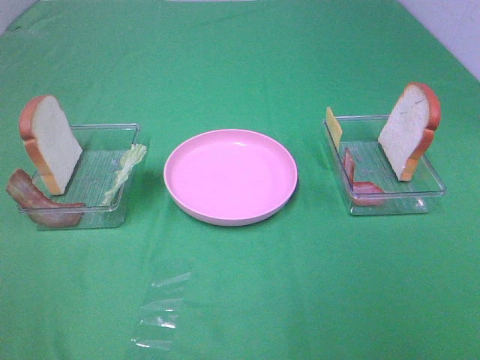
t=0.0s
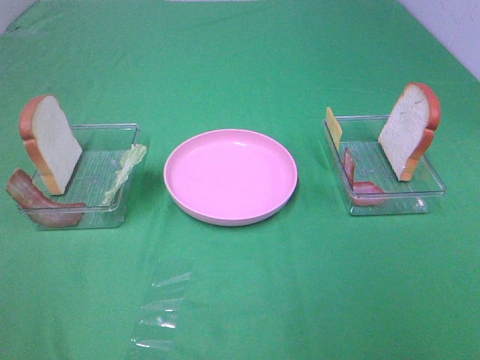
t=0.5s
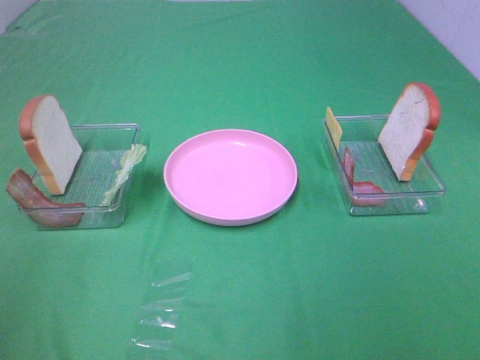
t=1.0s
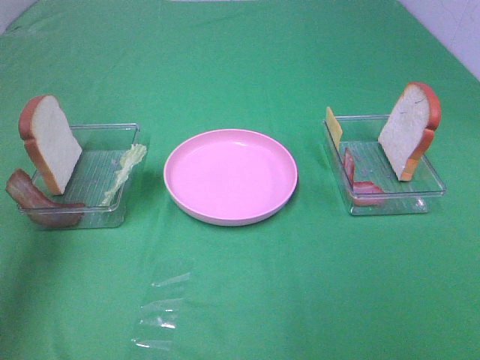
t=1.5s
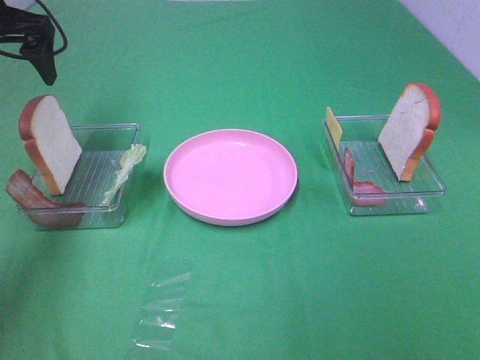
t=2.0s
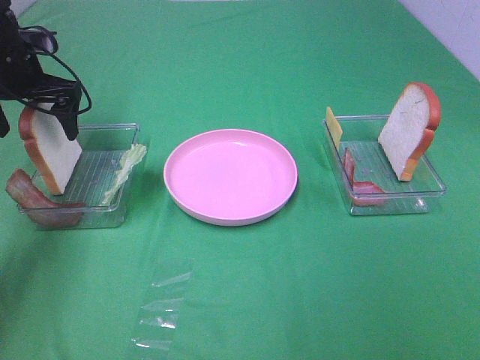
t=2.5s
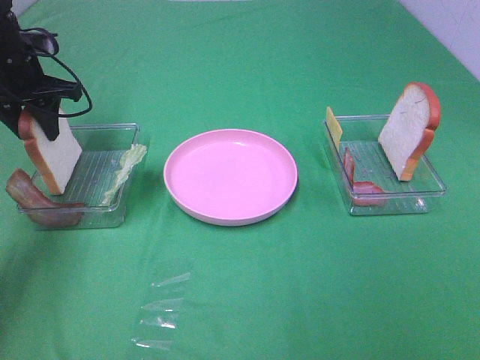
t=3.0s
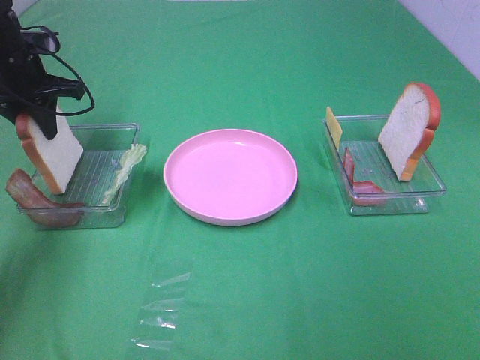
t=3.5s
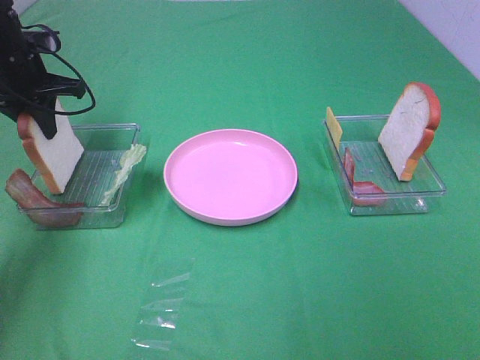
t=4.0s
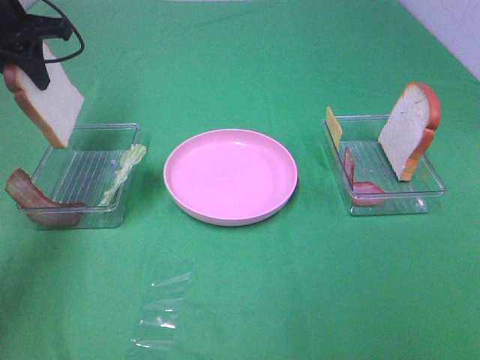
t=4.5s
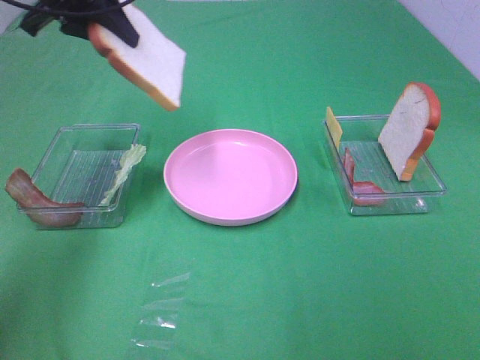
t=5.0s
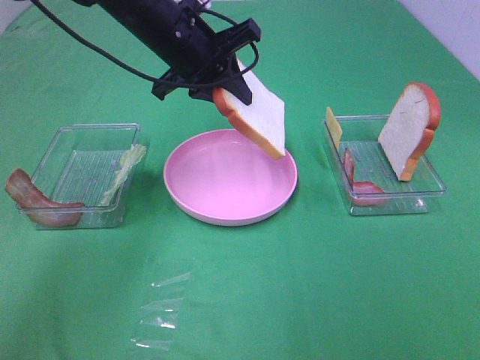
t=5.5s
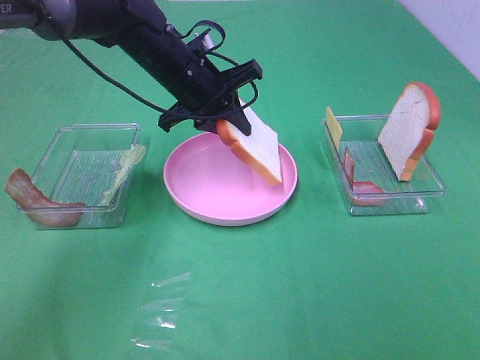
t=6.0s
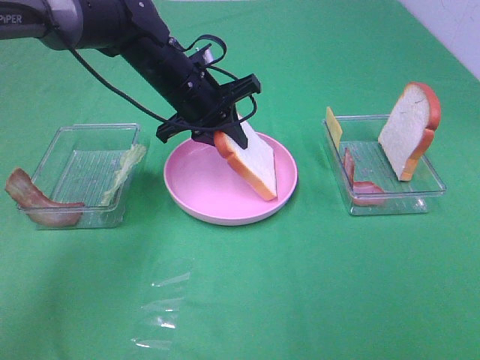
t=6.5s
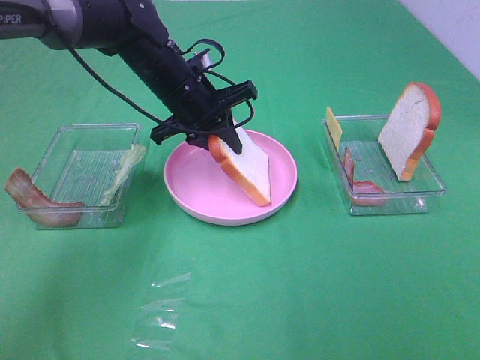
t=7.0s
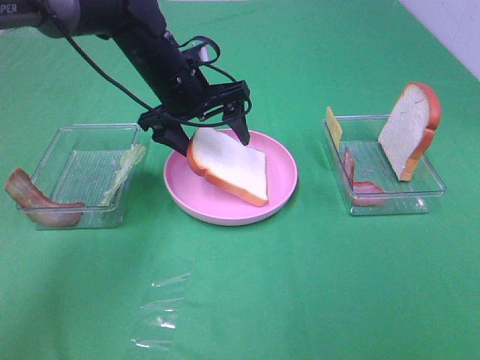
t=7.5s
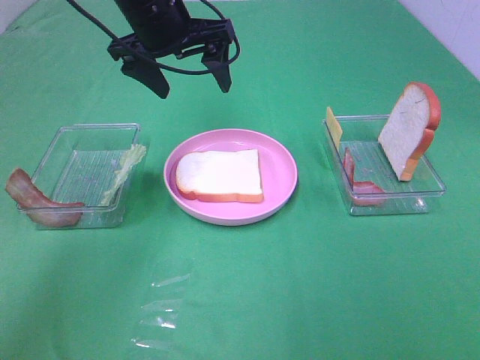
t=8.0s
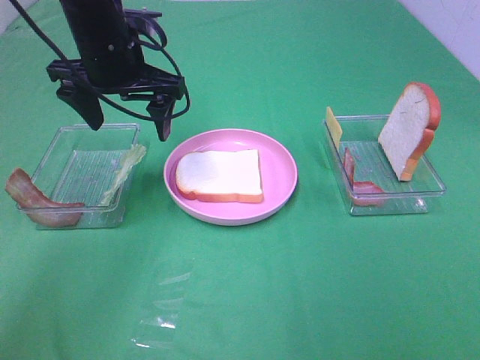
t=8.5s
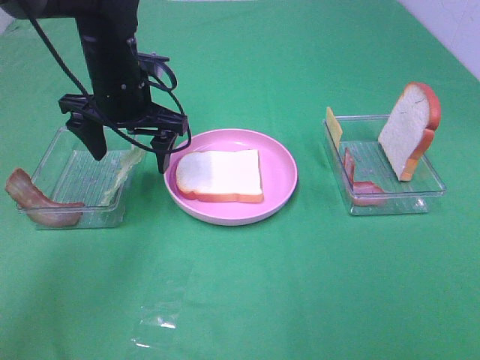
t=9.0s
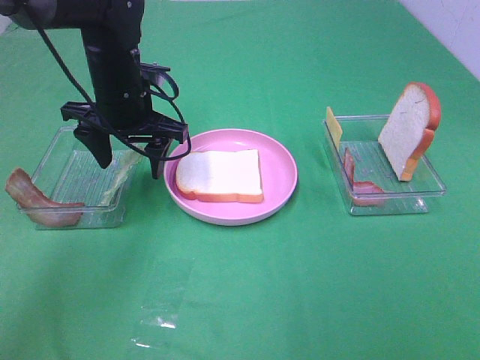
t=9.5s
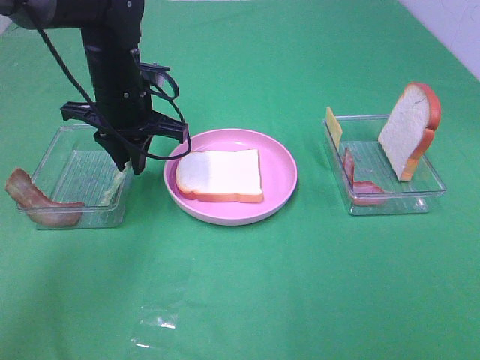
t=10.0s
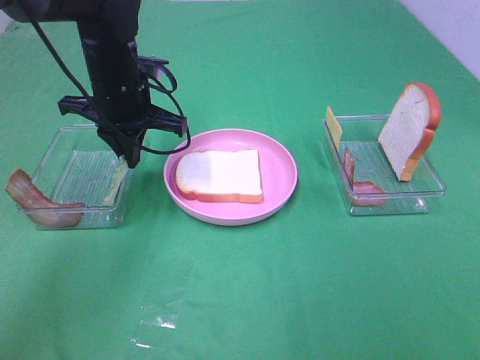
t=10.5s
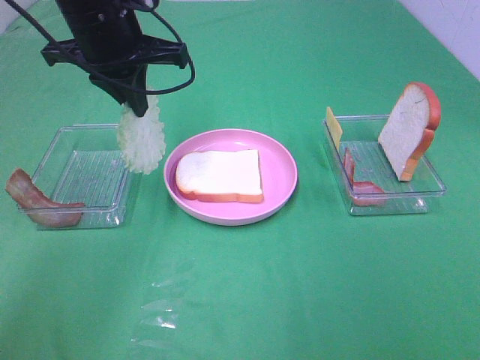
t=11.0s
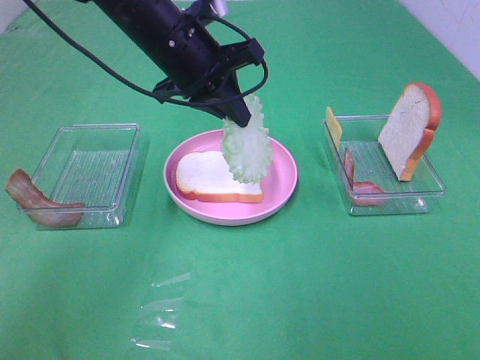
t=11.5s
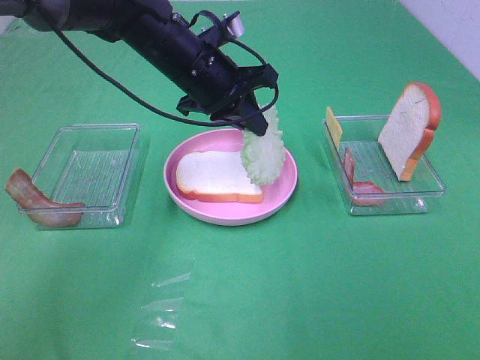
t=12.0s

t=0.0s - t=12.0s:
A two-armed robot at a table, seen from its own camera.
Task of the whole recording: Make sandwiches.
Step, t=0.0s - t=3.5s: Left hand:grab the bread slice.
Step, t=4.0s - t=7.5s: Left hand:place the bread slice on the plate.
Step, t=8.0s - t=10.0s: Left hand:grab the lettuce slice.
t=0.0s - t=2.0s: The left gripper shifts approximately 40 cm forward.
t=2.0s - t=4.0s: The left gripper shifts some 10 cm downward, and closes its fingers.
t=4.0s - t=6.0s: The left gripper goes approximately 20 cm to the right.
t=6.0s - t=8.0s: The left gripper shifts some 10 cm upward, and opens up.
t=8.0s - t=10.0s: The left gripper moves downward, some 10 cm, and closes its fingers.
t=10.0s - t=12.0s: The left gripper goes some 10 cm to the right, and moves roughly 10 cm upward and comes back.

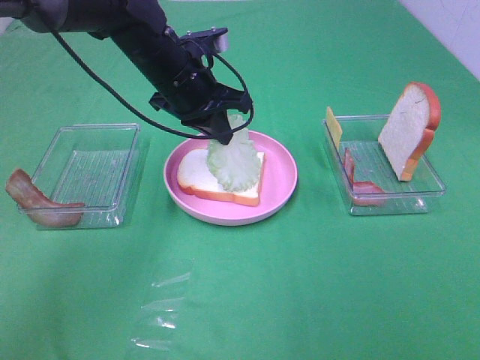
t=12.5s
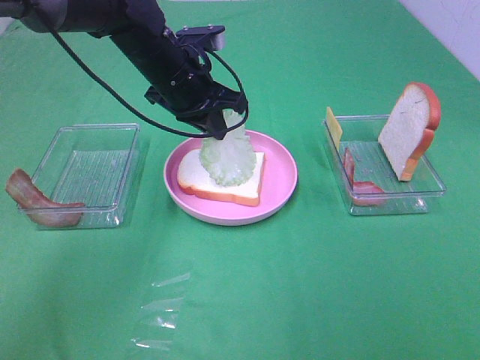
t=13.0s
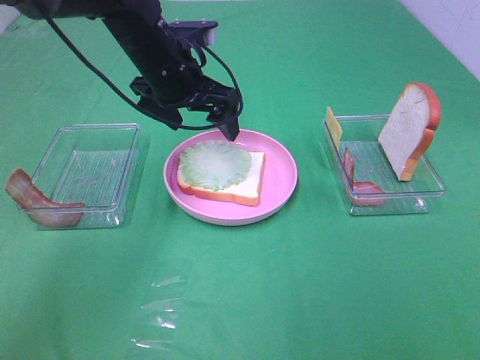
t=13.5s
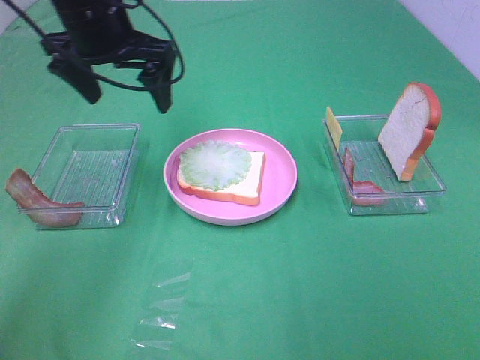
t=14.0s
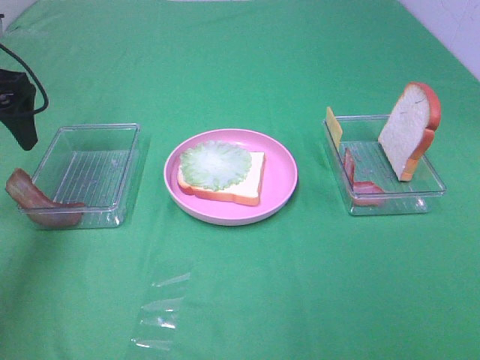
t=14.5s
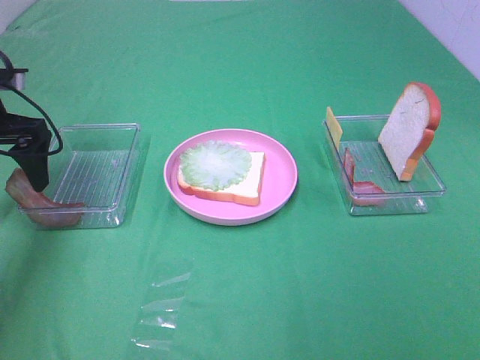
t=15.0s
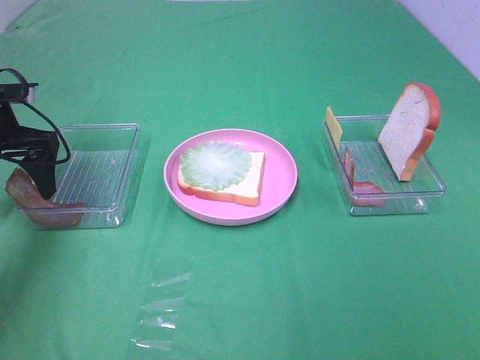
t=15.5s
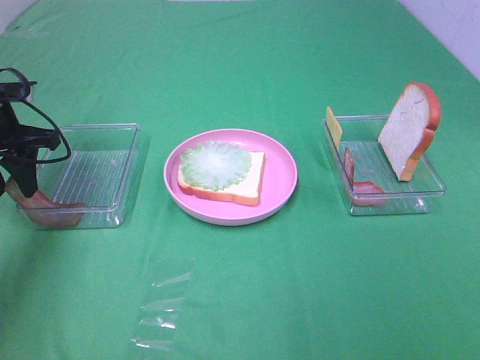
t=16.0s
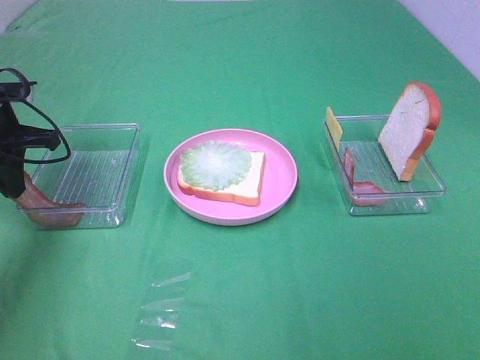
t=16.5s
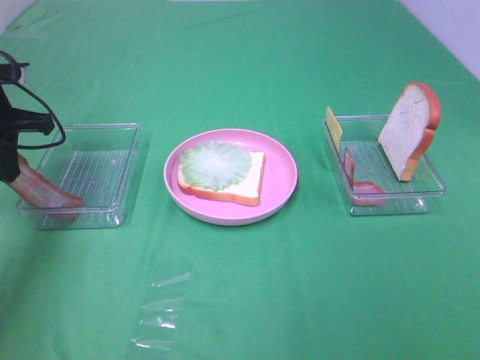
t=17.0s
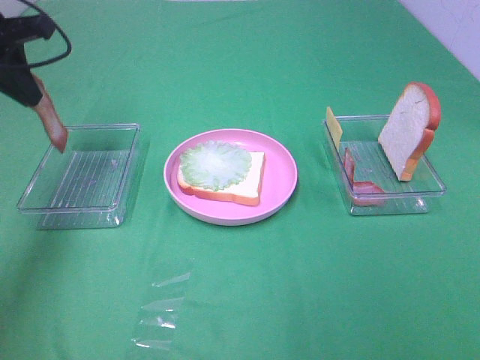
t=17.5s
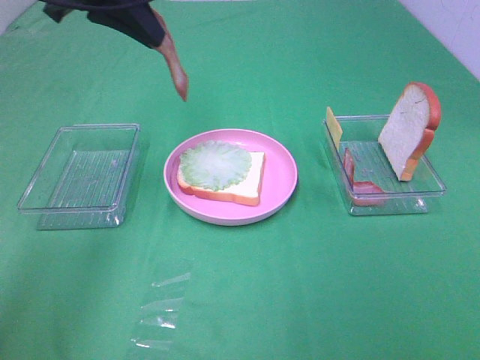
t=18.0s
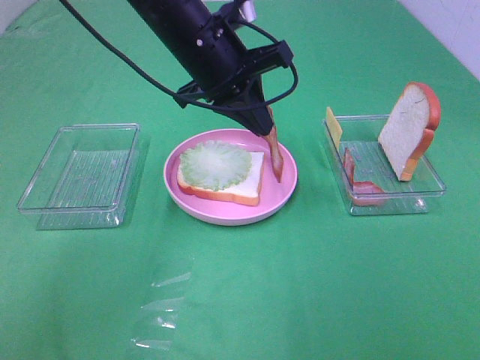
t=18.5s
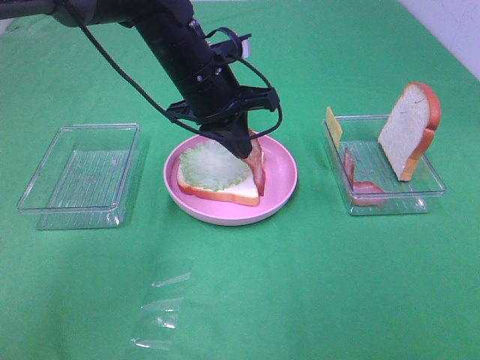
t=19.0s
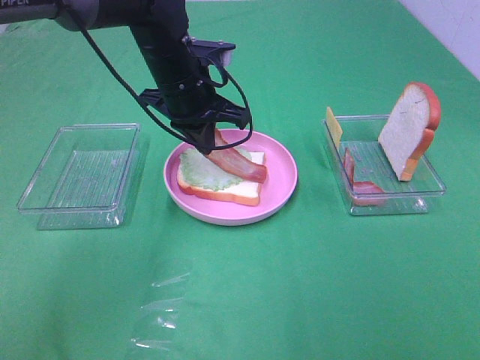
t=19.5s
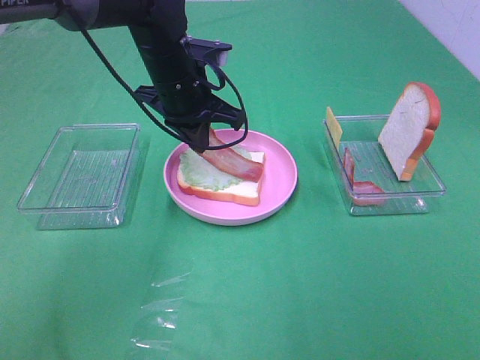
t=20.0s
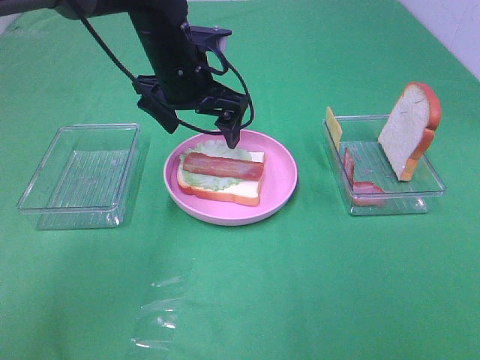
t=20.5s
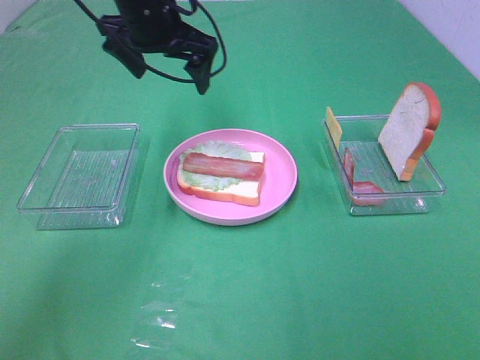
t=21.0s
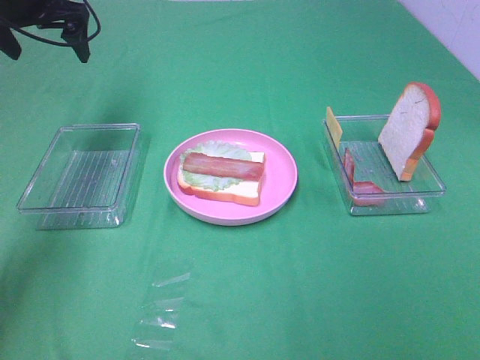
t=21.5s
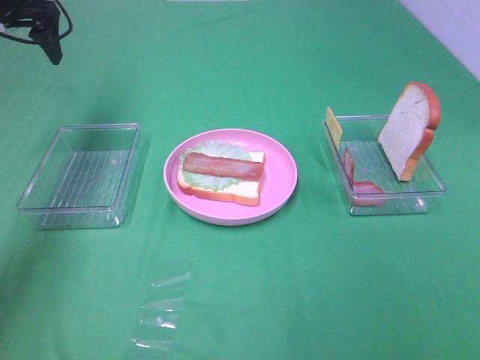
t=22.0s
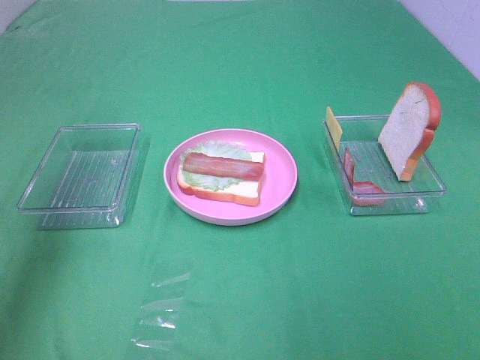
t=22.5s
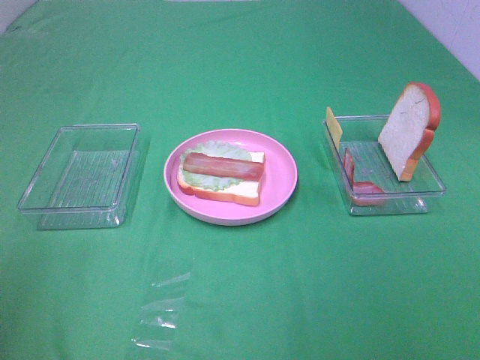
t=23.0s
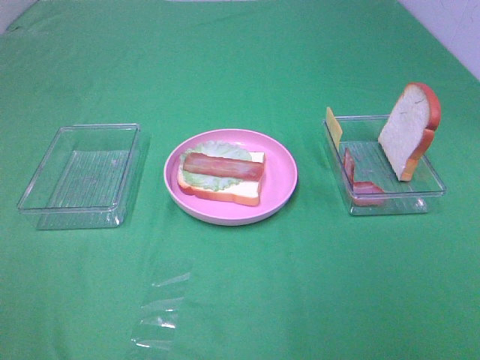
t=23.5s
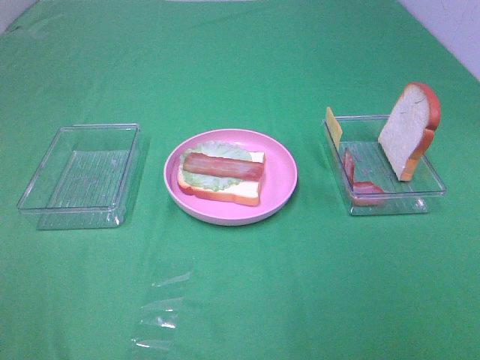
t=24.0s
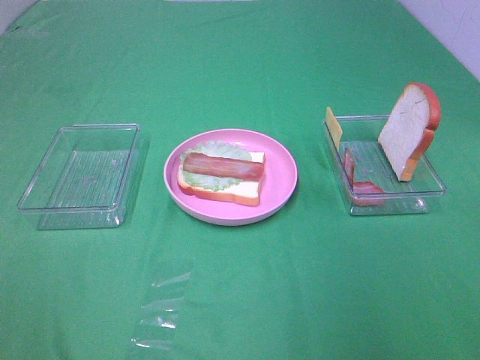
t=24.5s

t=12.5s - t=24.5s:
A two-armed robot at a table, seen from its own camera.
Task of the whole recording: Make sandwiches.
Step, t=13.5s - t=16.5s: Left hand:grab the bacon.
Step, t=17.0s - t=20.0s: Left hand:place bacon on lettuce slice.
t=12.5s - t=14.5s: The left gripper goes about 25 cm to the left, and opens its fingers.
t=14.5s - t=16.5s: The left gripper shifts roughly 10 cm downward, and closes up.
t=16.5s - t=18.5s: The left gripper goes roughly 25 cm to the right.
t=18.5s - t=20.5s: The left gripper ends up roughly 5 cm from where it was, and opens its fingers.
t=20.5s - t=22.5s: The left gripper goes some 30 cm to the left, backward and upward.
t=22.5s - t=24.5s: The left gripper shifts about 30 cm backward.

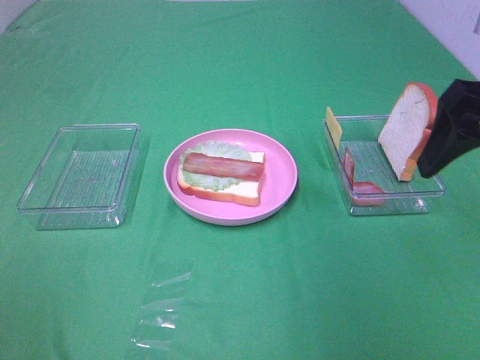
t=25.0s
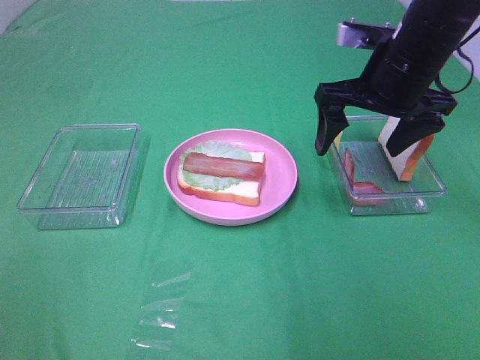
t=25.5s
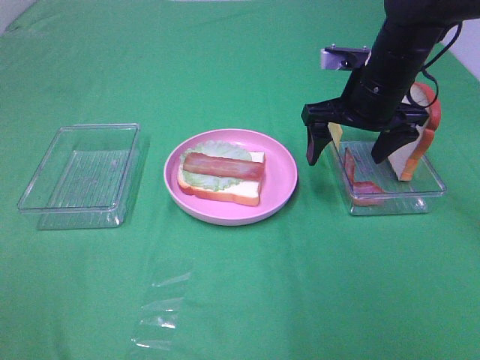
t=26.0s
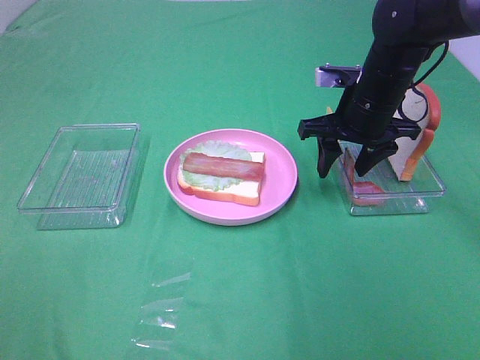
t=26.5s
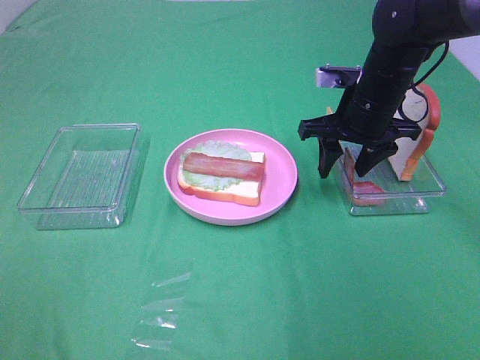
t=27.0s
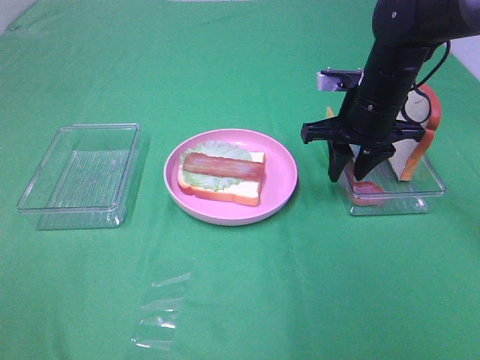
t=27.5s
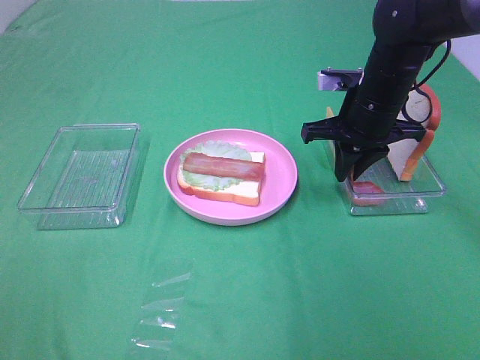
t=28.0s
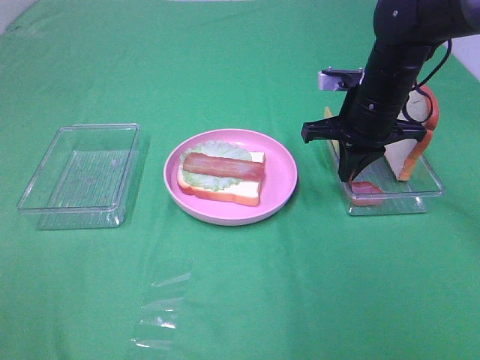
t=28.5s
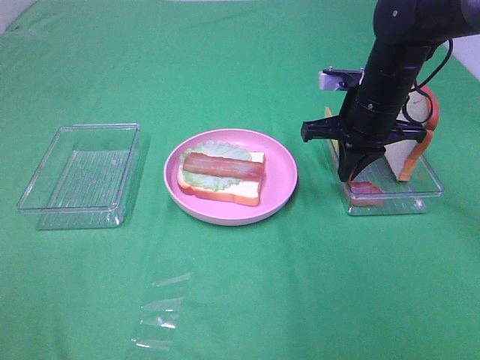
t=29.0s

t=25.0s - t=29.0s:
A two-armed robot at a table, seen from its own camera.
Task of the whole recording: Make sandwiches.
t=25.0s - t=27.0s: The right gripper travels forward, downward and to the left by about 20 cm, and closes up.
t=27.0s - t=29.0s: The right gripper closes.
